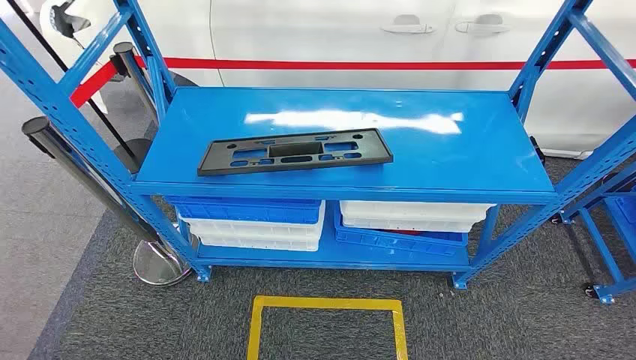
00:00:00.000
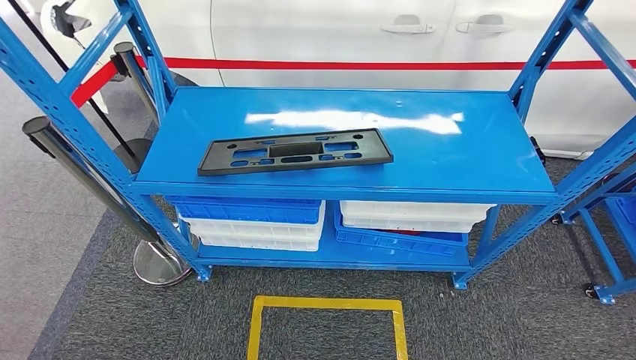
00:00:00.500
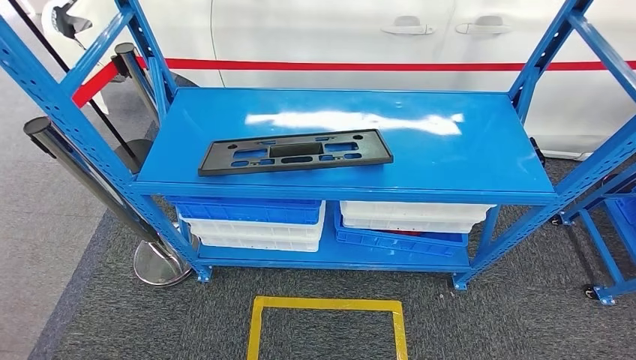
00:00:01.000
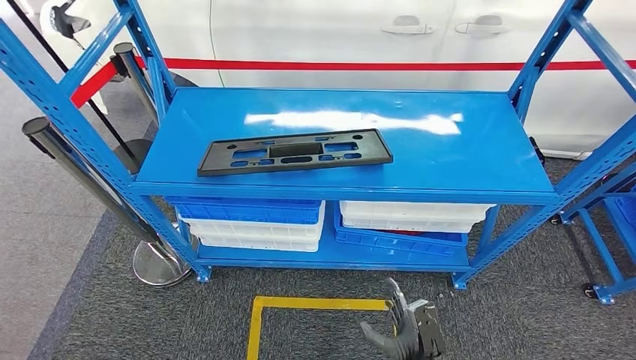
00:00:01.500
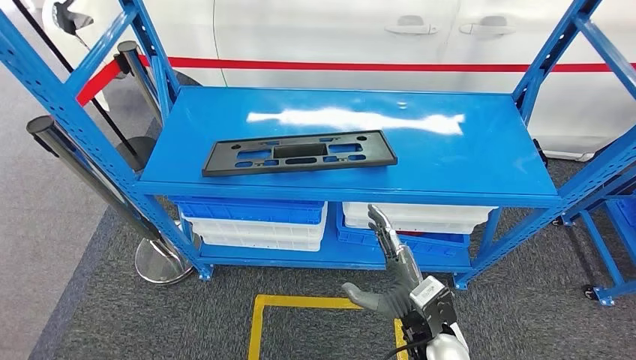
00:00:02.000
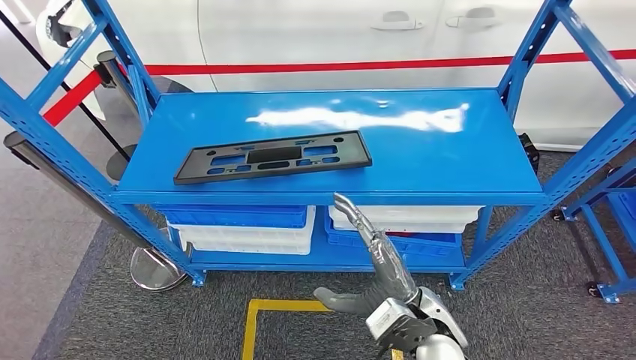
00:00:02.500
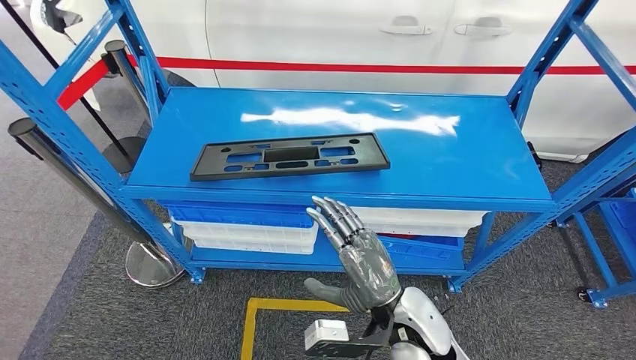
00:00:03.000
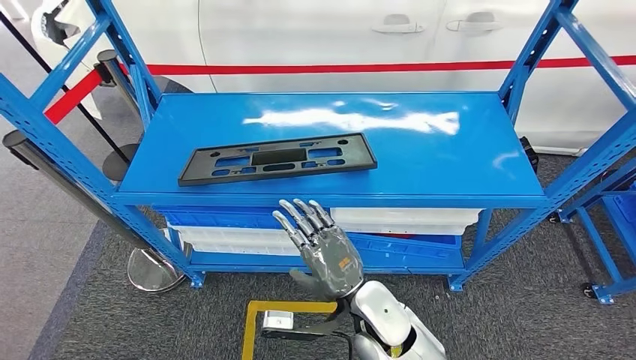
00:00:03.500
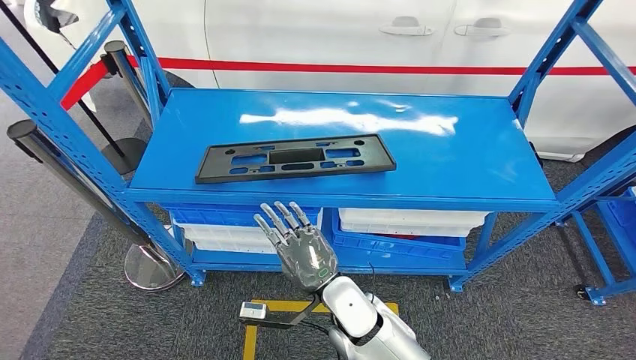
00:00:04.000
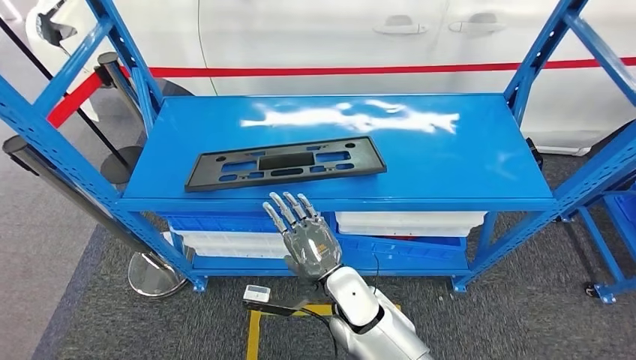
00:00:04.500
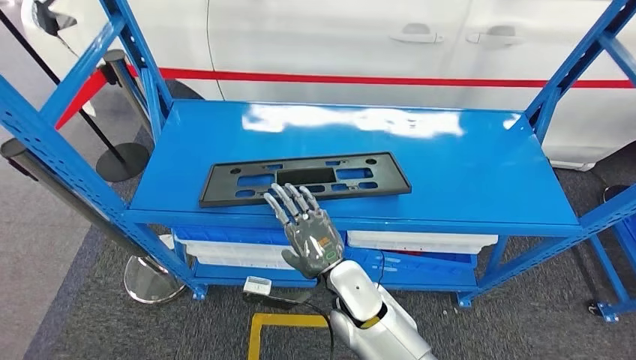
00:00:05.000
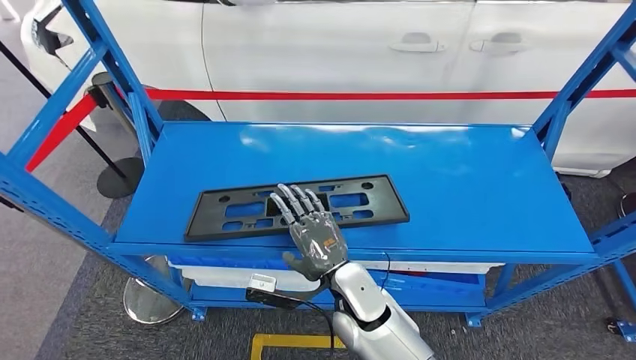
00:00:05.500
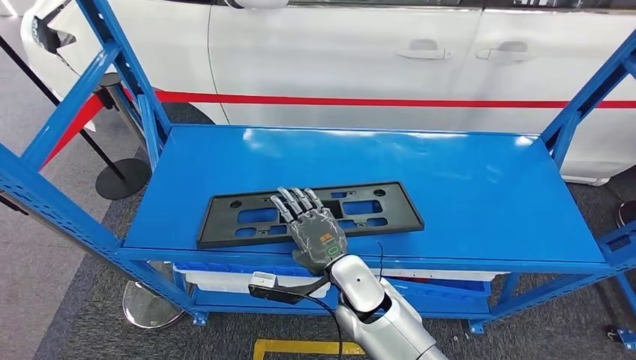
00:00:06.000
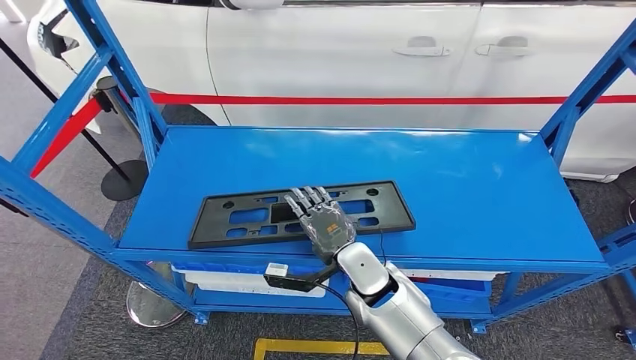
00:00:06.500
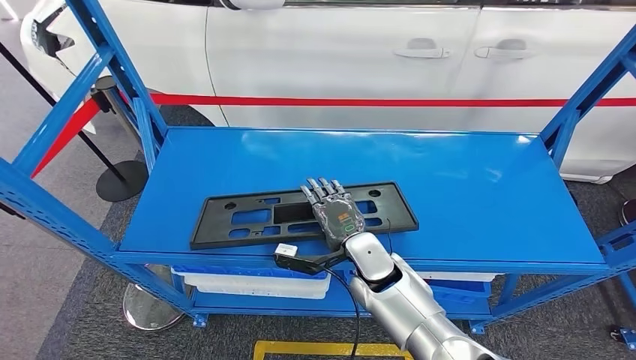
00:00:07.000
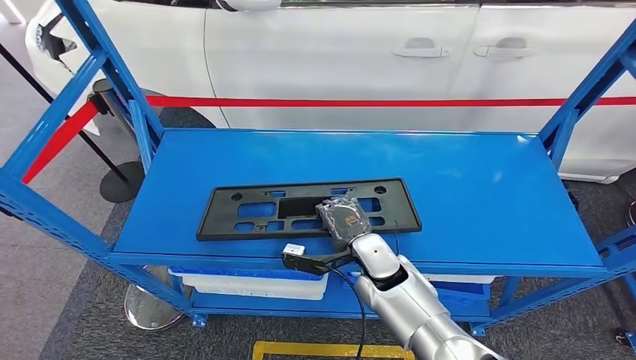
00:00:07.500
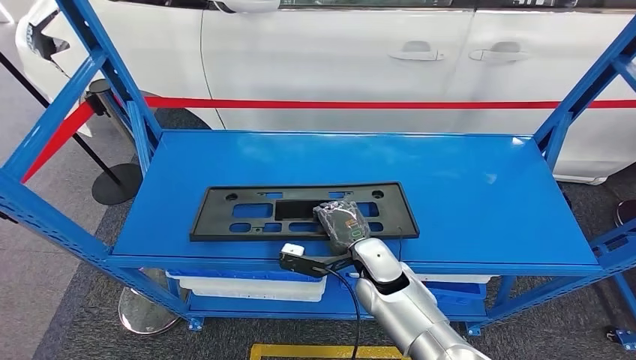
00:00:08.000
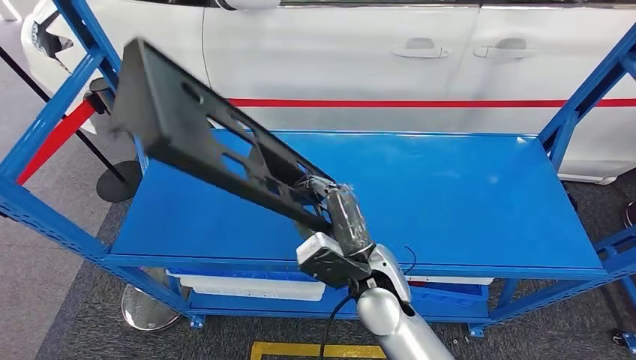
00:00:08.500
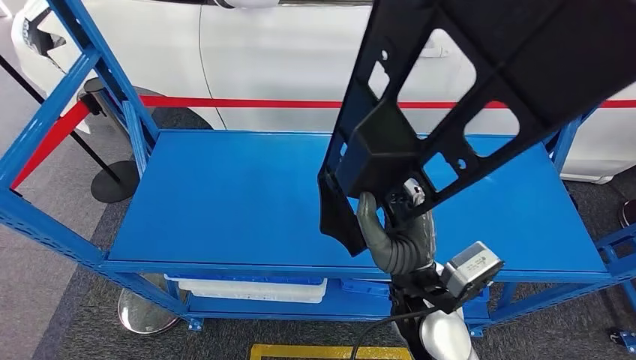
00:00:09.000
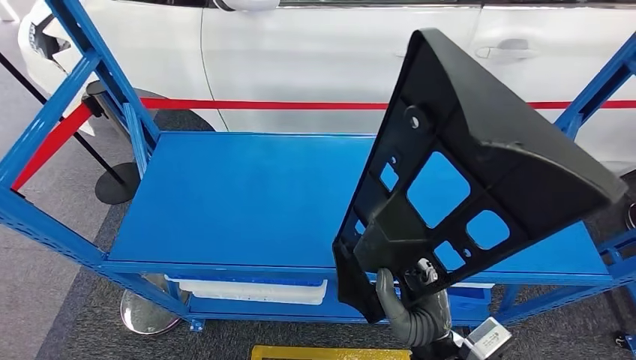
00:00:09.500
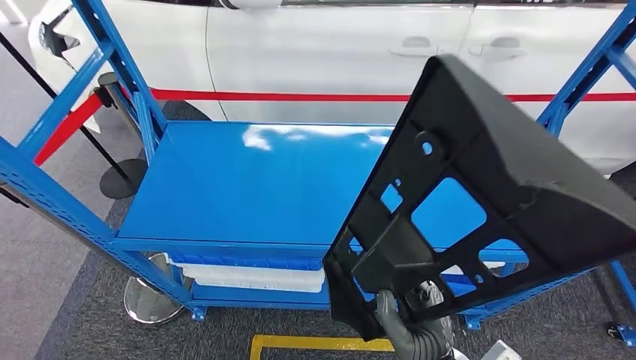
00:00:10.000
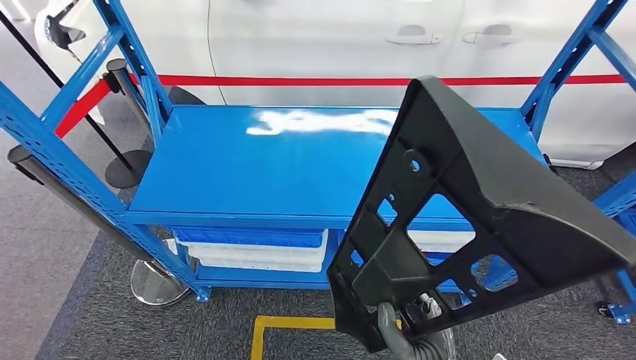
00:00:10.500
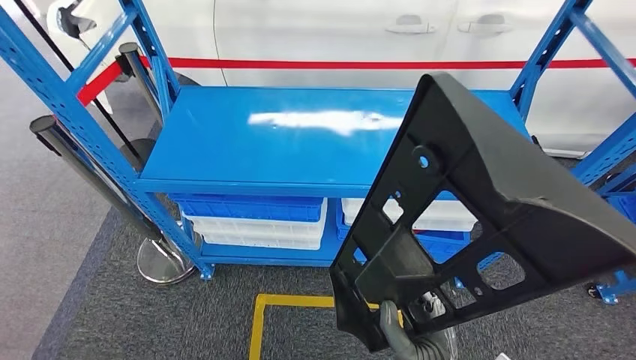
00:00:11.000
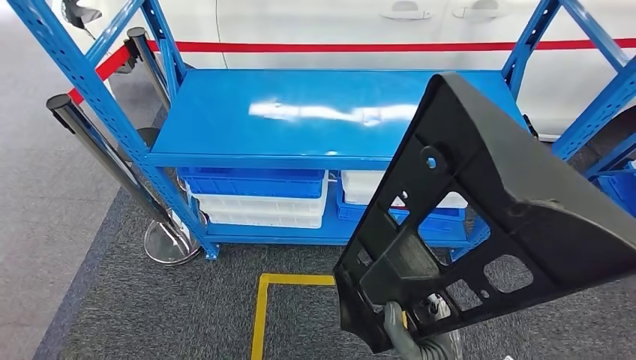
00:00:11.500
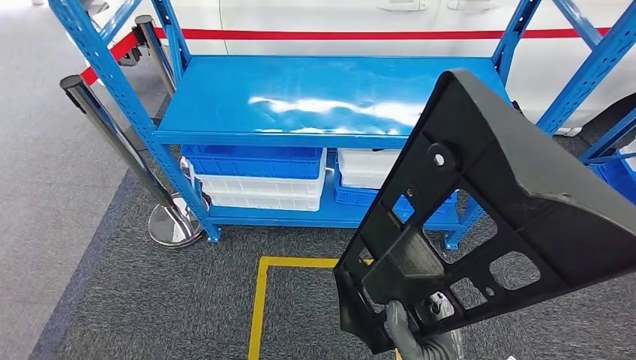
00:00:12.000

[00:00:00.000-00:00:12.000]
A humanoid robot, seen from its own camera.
Step, 00:00:00.000 to 00:00:09.000: Pick up the large material from the shelf.

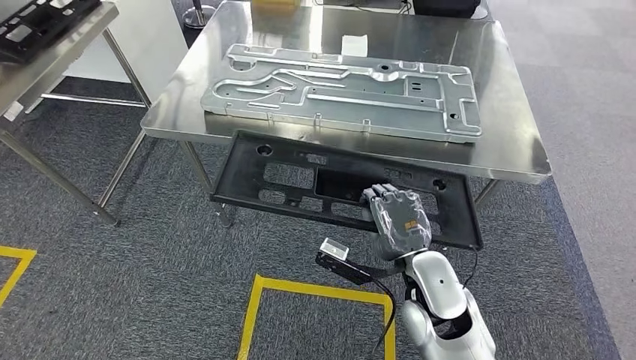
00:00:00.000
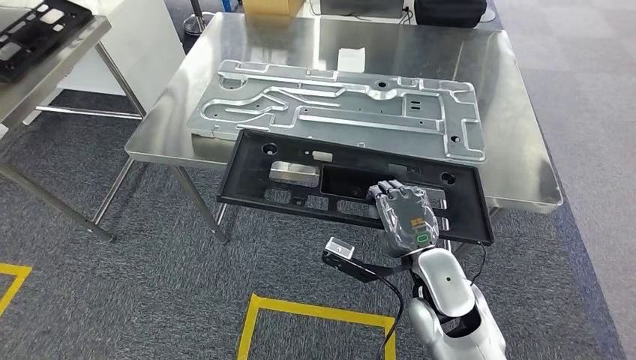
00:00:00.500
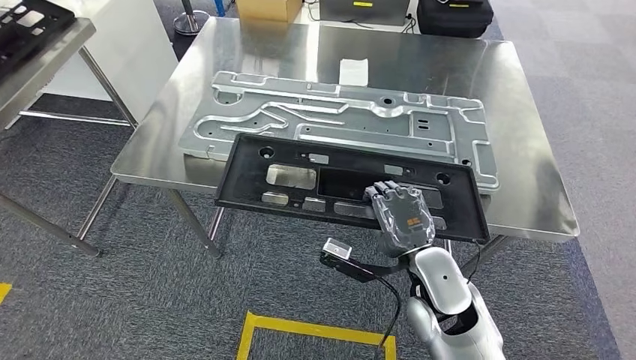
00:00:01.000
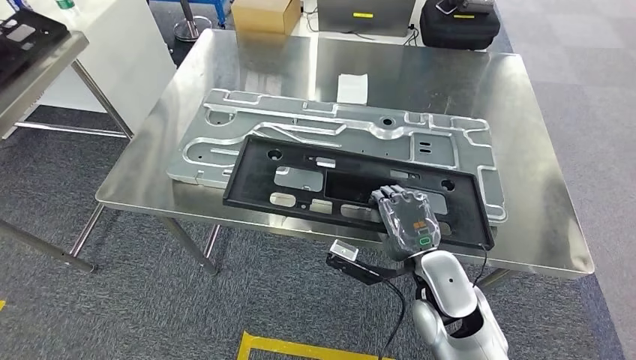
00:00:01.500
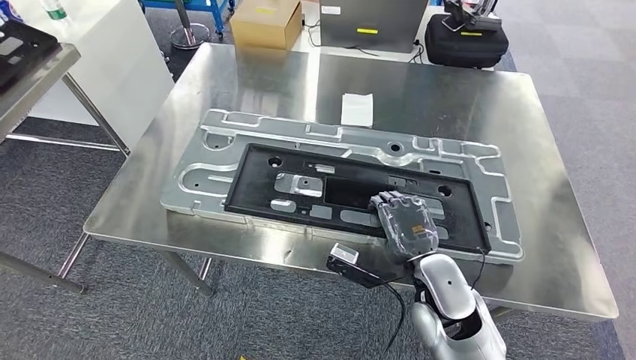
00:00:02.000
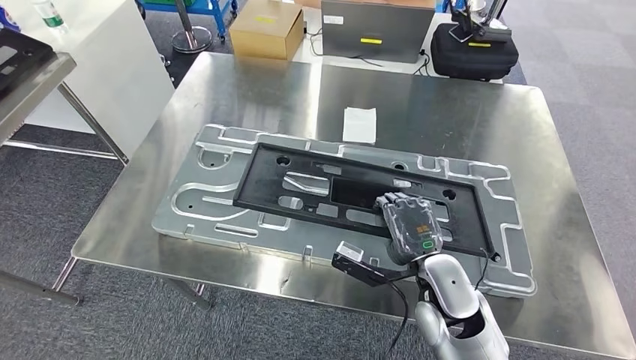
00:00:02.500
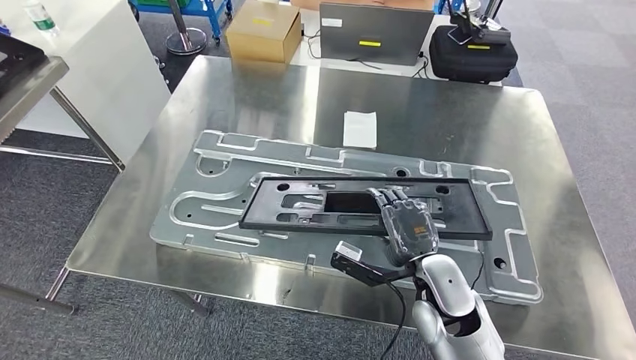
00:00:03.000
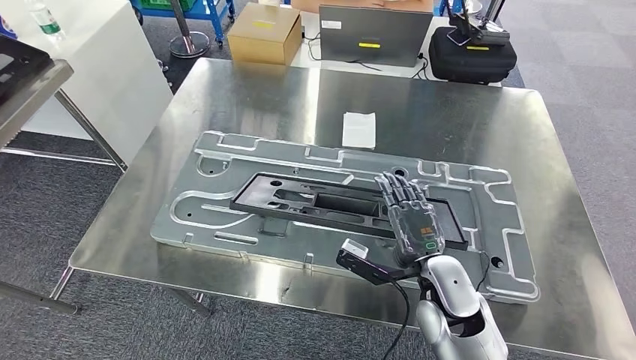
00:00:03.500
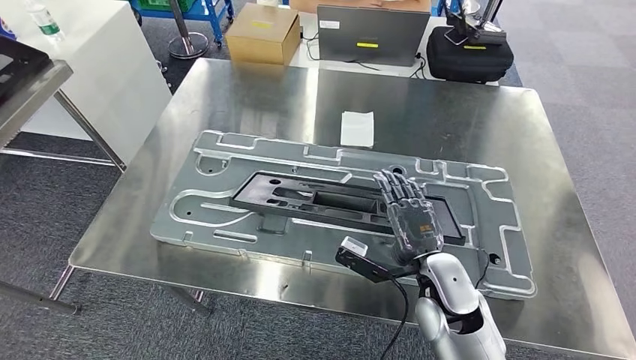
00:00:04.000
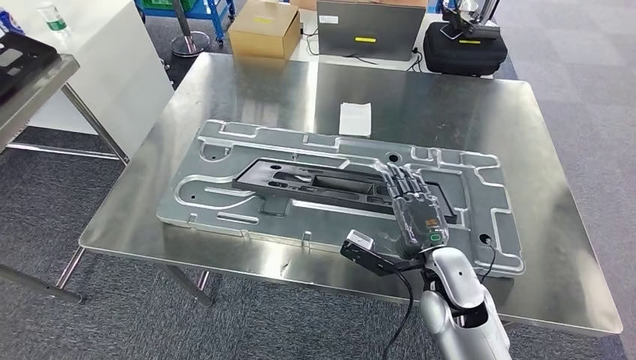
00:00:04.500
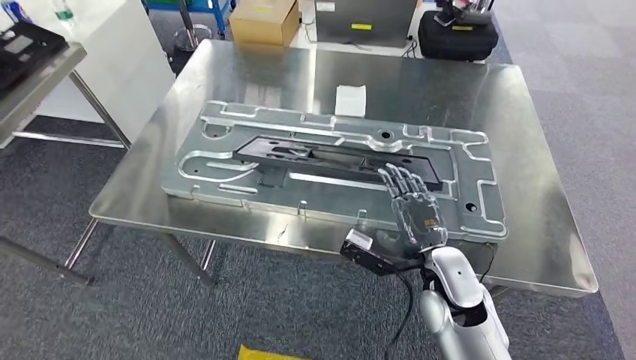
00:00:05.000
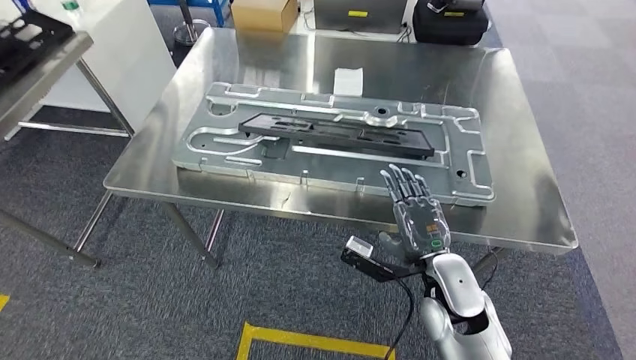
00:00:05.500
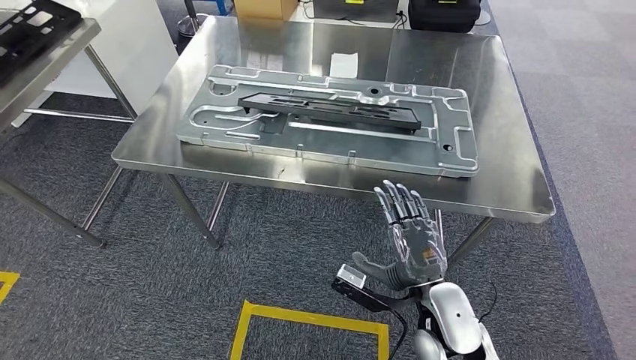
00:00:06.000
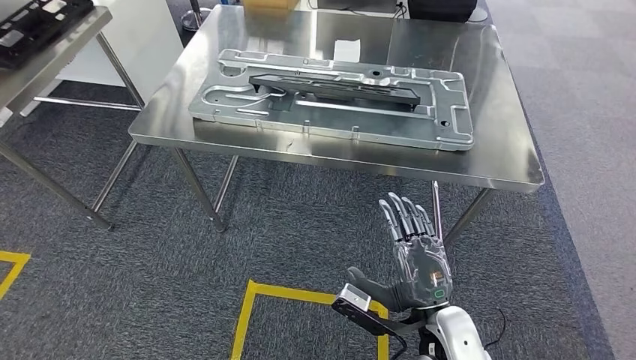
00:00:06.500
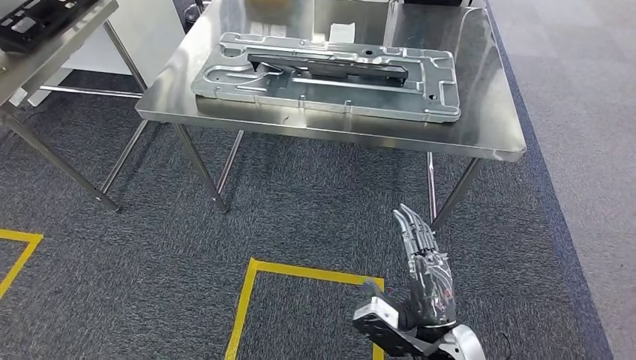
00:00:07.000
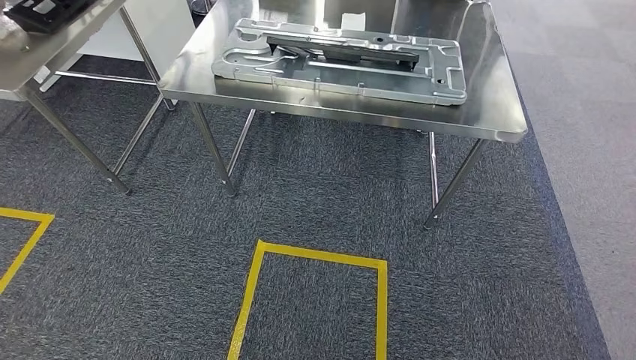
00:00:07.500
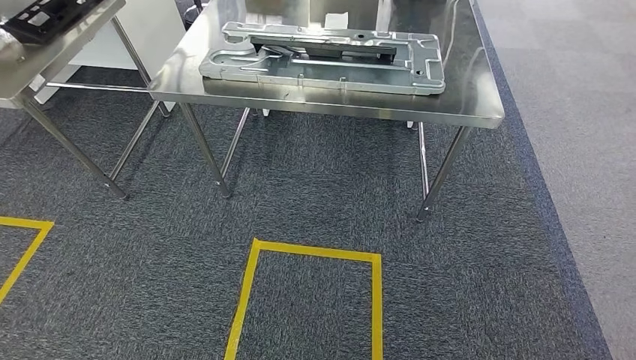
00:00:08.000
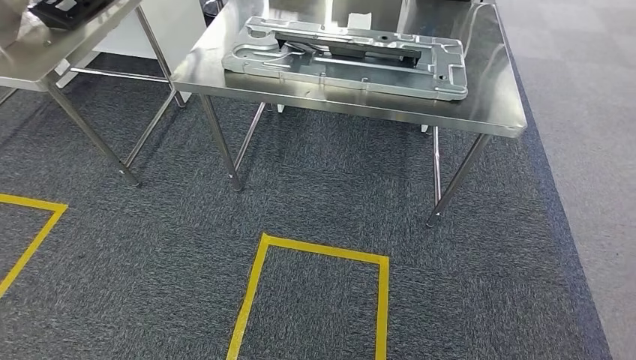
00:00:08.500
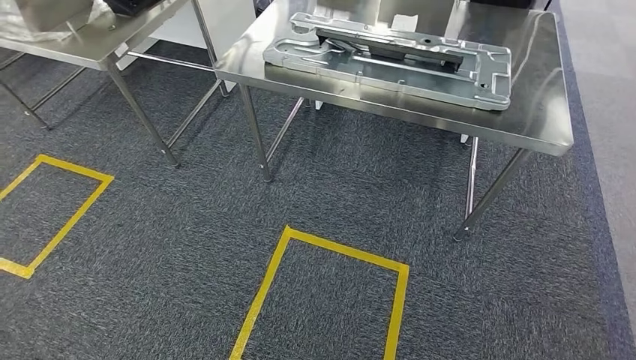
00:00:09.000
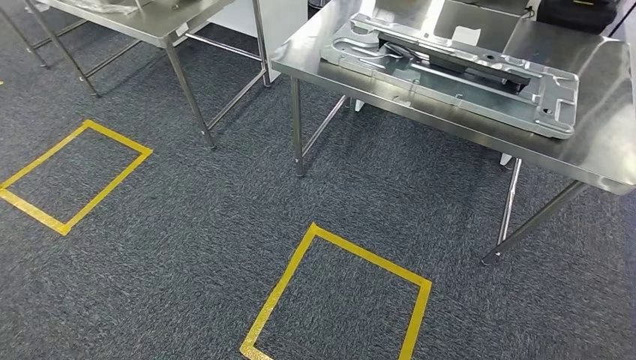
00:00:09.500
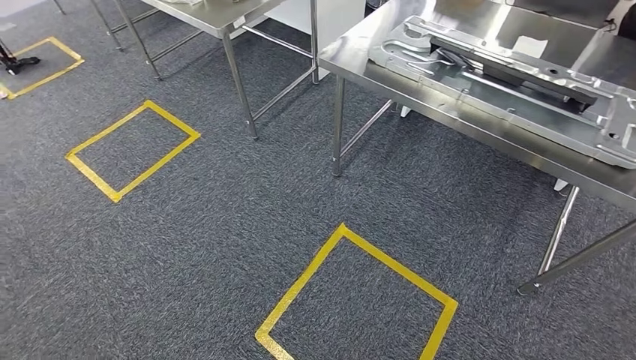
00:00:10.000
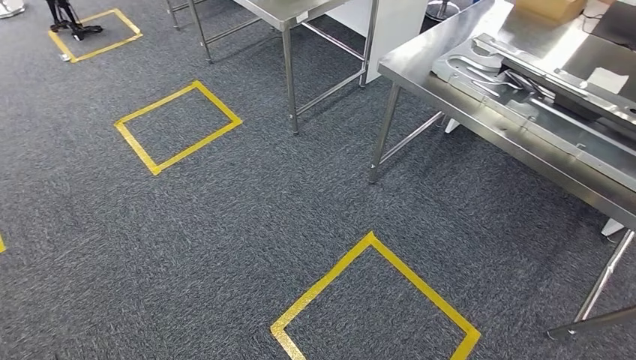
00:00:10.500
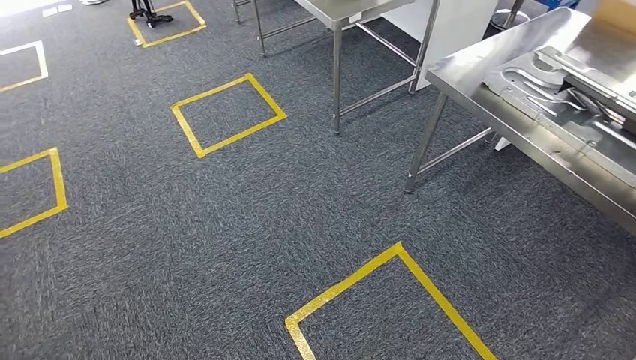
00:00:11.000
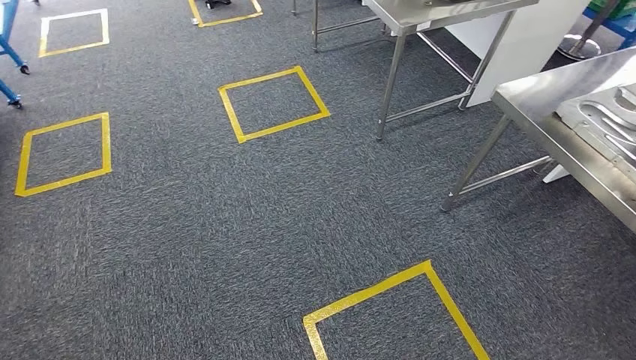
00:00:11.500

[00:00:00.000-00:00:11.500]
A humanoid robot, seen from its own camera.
Step, 00:00:01.500 to 00:00:07.000: Insert the large material into the corresponding slot on the workbench.
